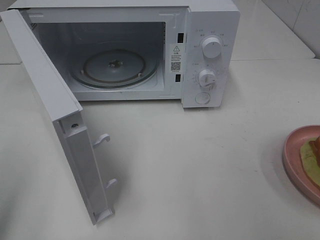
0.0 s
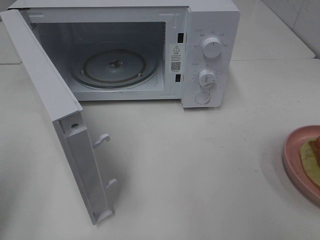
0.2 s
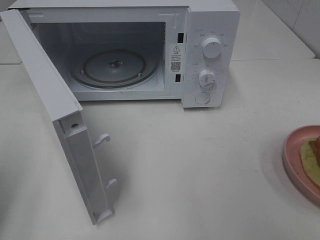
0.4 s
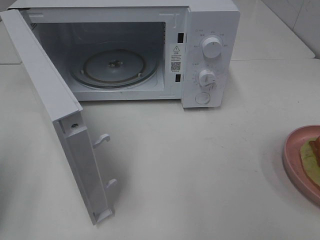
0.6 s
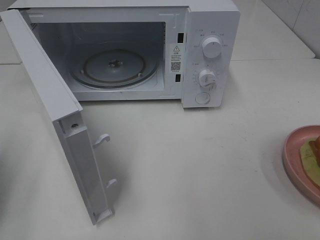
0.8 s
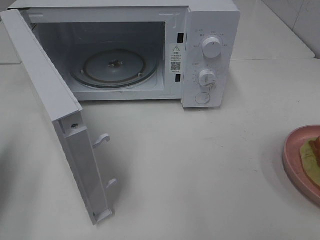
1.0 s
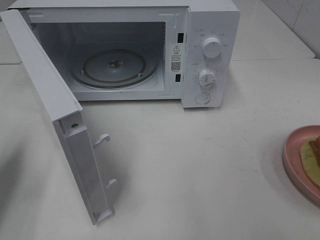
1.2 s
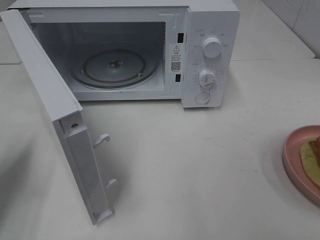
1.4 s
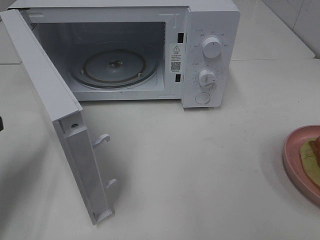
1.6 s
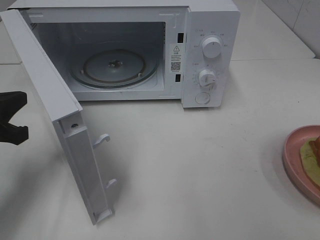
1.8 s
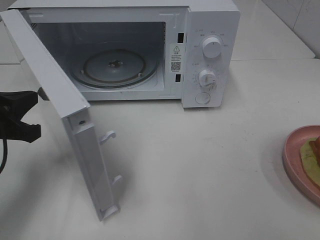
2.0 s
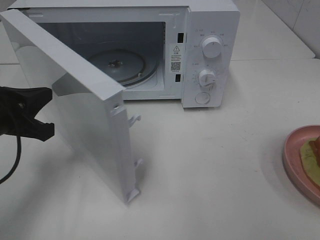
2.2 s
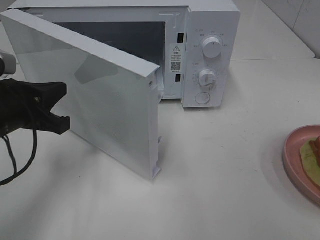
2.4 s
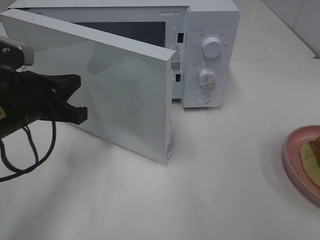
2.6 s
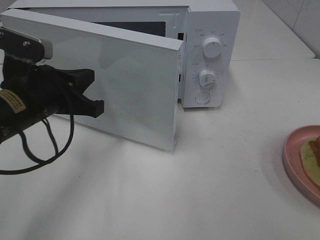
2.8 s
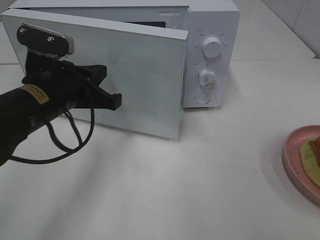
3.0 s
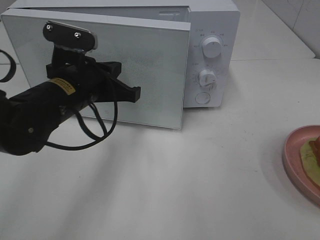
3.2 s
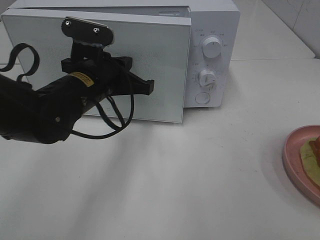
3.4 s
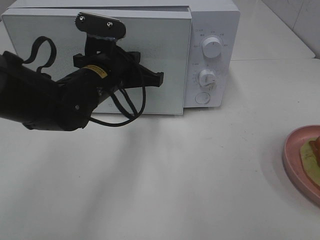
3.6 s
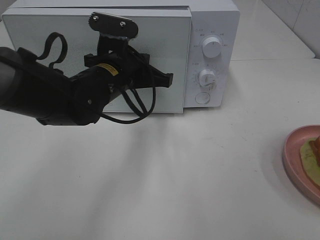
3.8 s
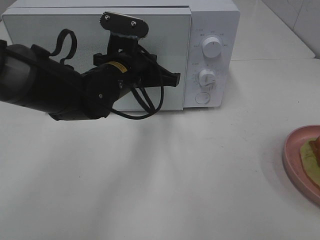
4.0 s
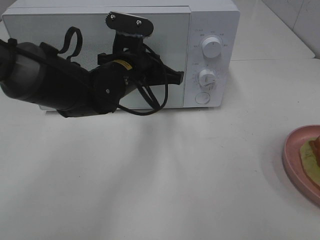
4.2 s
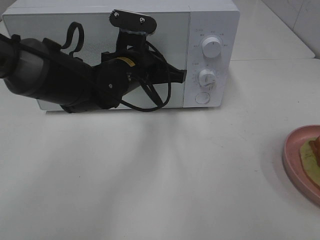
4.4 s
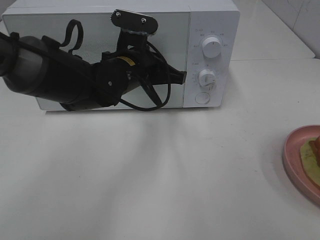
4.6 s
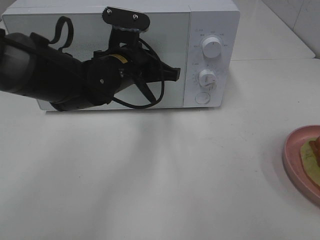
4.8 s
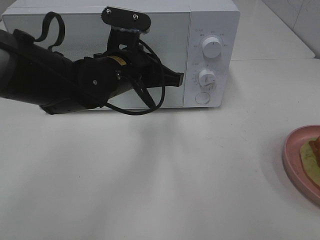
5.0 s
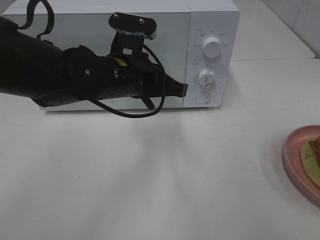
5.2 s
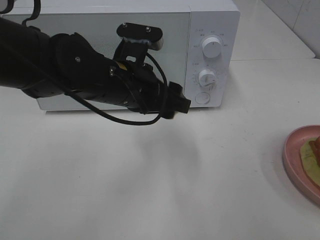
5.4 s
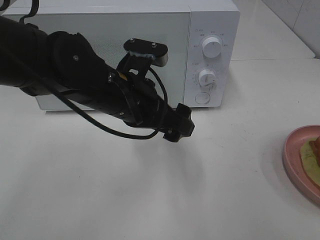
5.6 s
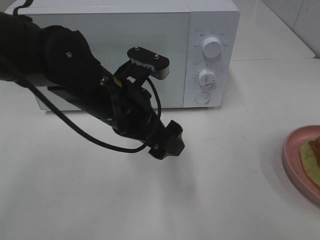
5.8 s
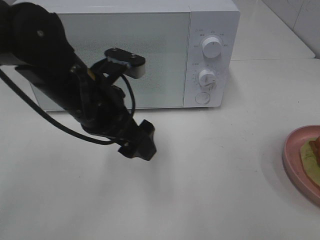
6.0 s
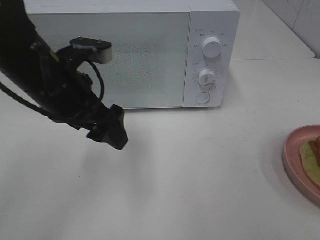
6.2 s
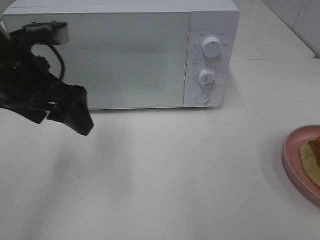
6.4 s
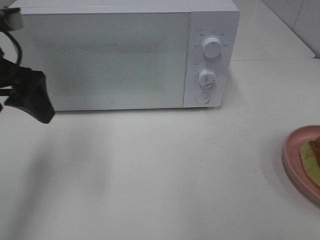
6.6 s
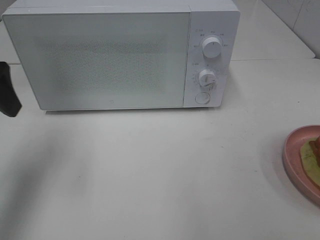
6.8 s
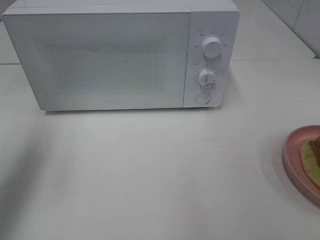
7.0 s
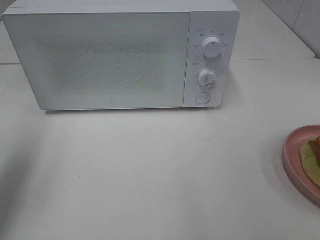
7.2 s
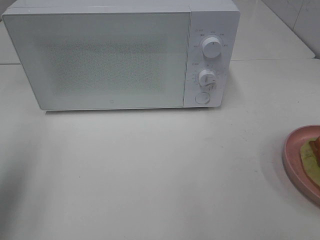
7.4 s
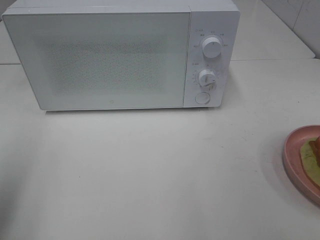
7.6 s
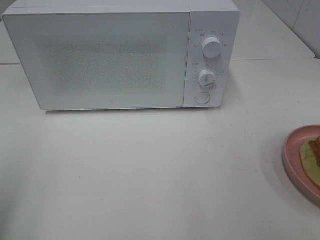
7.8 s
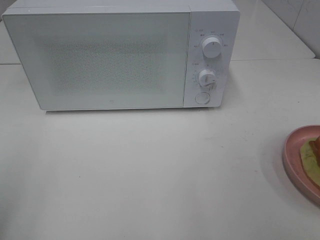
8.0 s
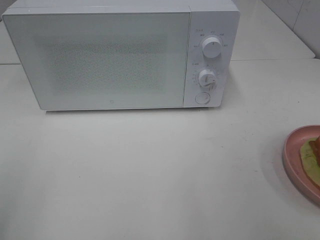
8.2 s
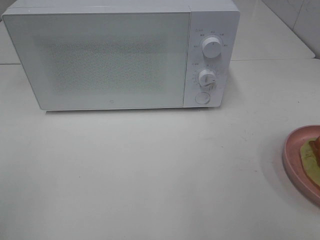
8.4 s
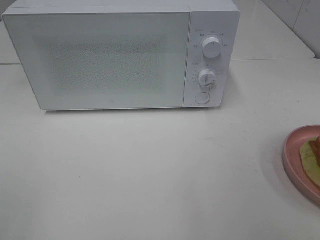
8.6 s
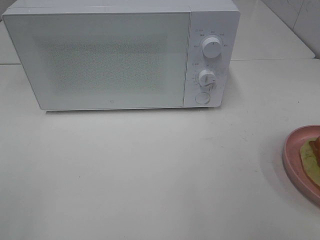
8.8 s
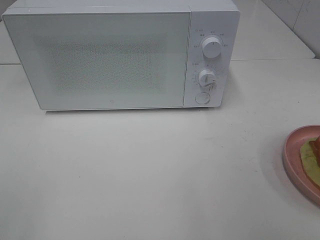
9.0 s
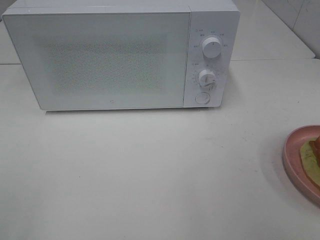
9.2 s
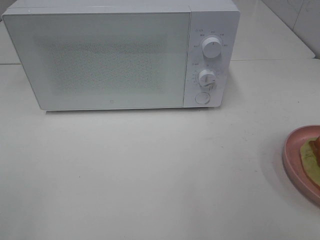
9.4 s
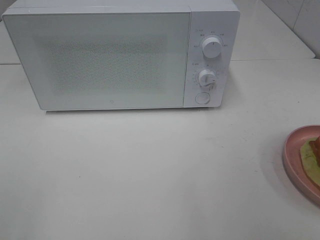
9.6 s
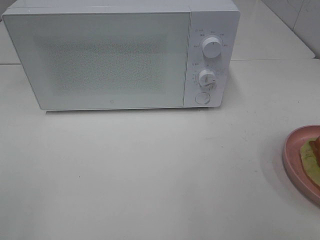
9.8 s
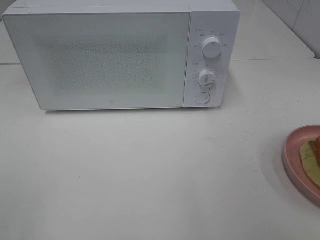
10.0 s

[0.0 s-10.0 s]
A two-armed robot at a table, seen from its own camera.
Task of the whole recording: Heat Sandwich.
Step, 0.0 to 5.4 s: Left hand: close the microwave door.
0.0 to 1.4 s: The left gripper moves forward and downward, roughly 15 cm.
1.4 to 2.8 s: The left gripper heads to the right, covering roughly 15 cm.
2.8 to 4.2 s: The left gripper travels to the right and forward by about 15 cm.
4.2 to 5.8 s: The left gripper heads backward, covering approximately 10 cm, and opens up.
5.8 to 7.2 s: The left gripper moves to the left and upward, roughly 30 cm.
7.2 to 8.6 s: The left gripper goes approximately 20 cm backward.
8.6 to 10.0 s: Both grippers stay put.

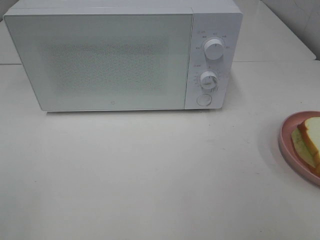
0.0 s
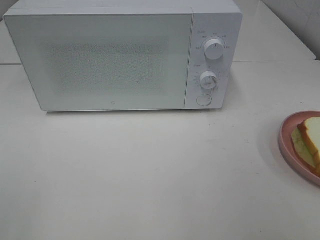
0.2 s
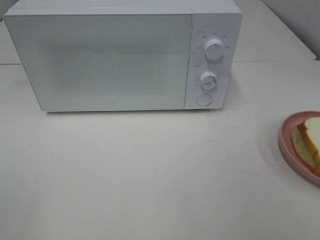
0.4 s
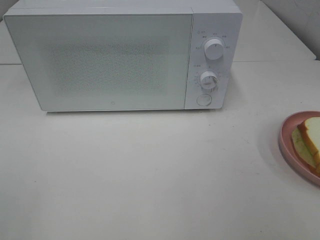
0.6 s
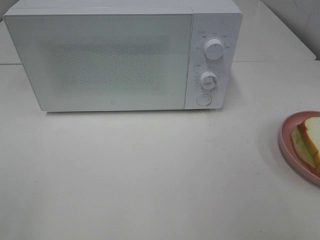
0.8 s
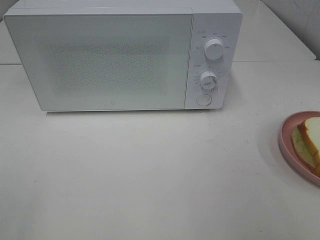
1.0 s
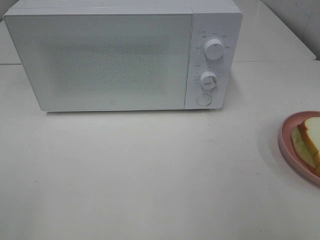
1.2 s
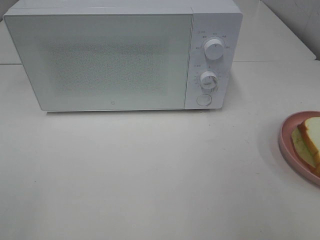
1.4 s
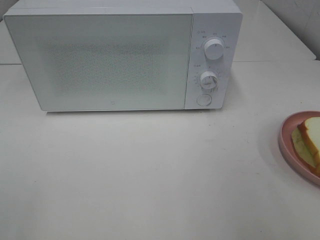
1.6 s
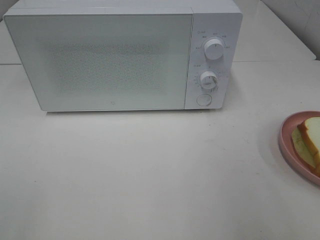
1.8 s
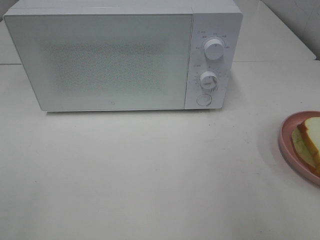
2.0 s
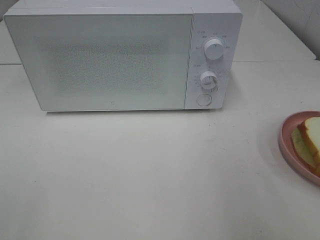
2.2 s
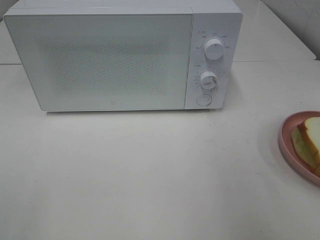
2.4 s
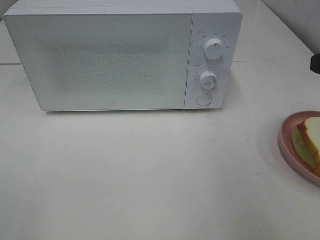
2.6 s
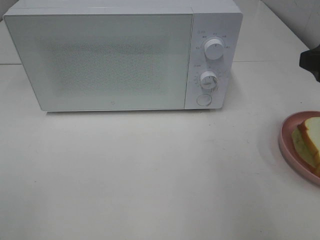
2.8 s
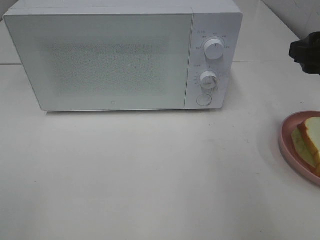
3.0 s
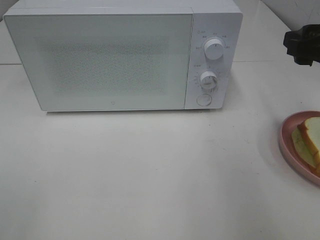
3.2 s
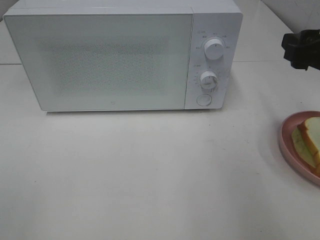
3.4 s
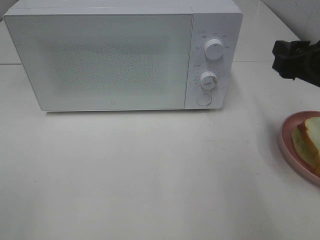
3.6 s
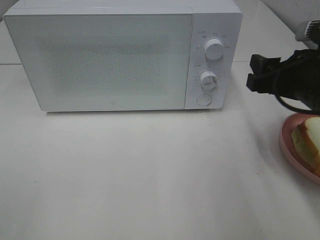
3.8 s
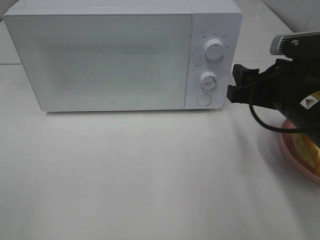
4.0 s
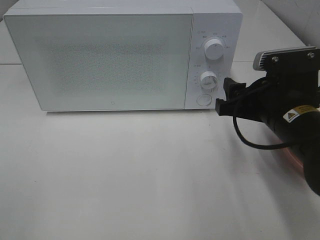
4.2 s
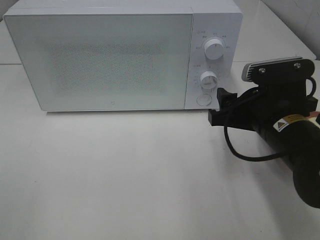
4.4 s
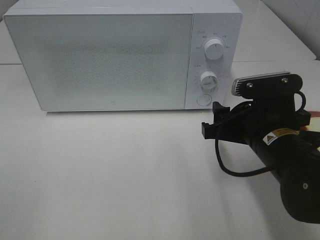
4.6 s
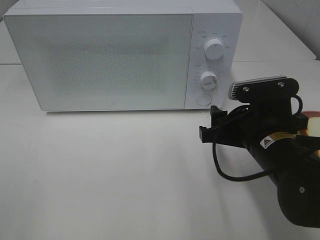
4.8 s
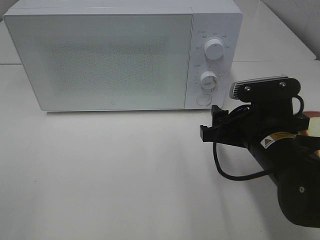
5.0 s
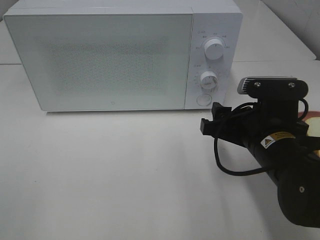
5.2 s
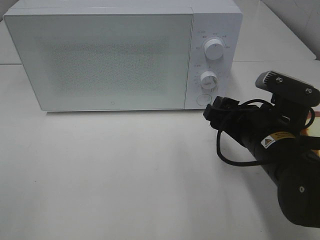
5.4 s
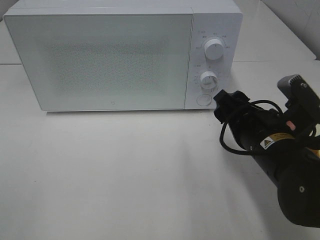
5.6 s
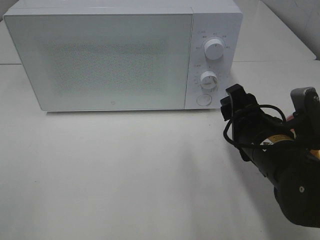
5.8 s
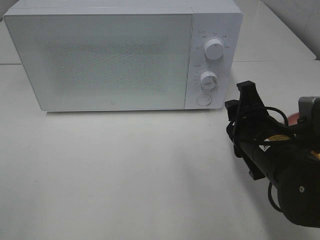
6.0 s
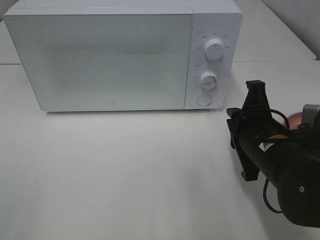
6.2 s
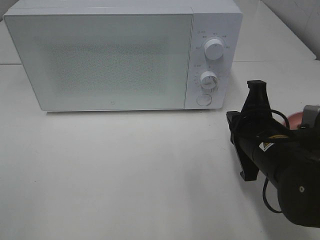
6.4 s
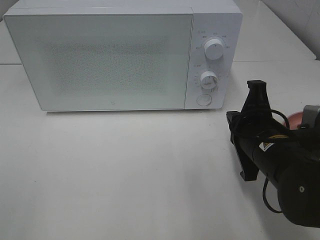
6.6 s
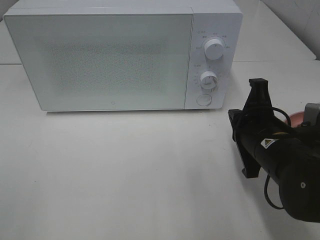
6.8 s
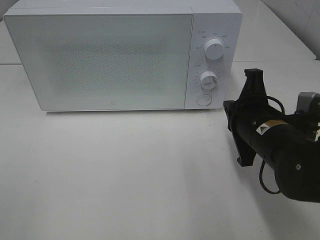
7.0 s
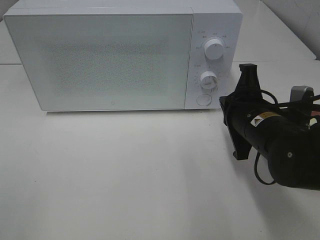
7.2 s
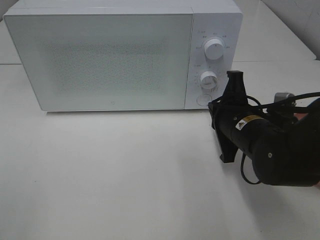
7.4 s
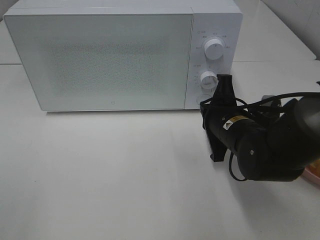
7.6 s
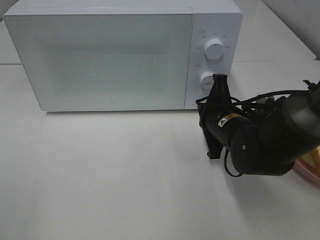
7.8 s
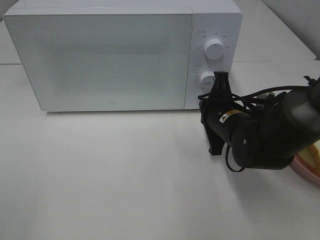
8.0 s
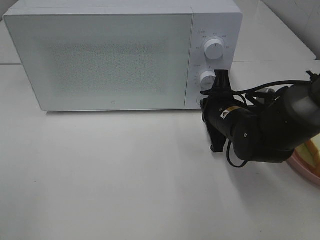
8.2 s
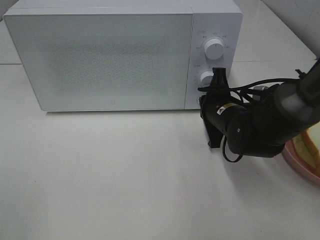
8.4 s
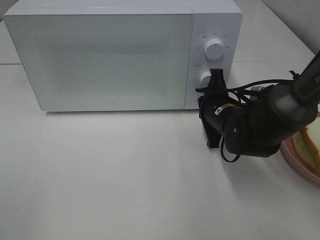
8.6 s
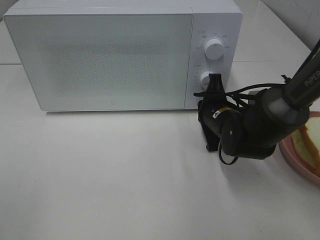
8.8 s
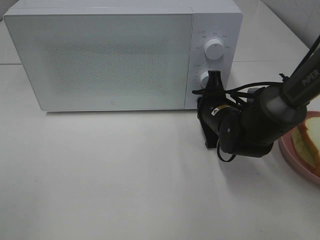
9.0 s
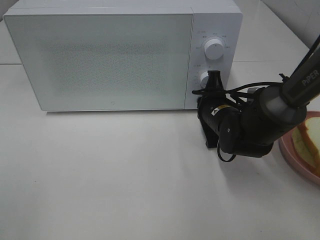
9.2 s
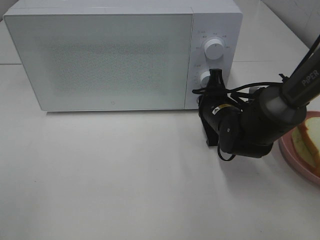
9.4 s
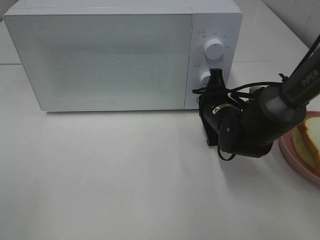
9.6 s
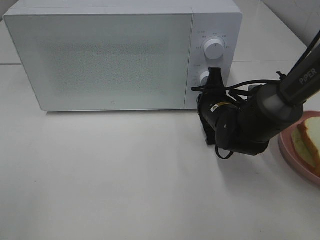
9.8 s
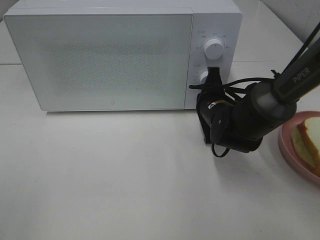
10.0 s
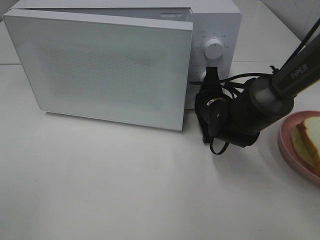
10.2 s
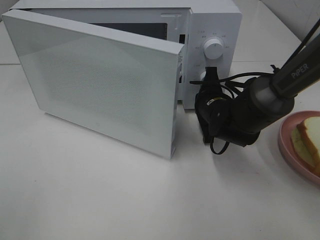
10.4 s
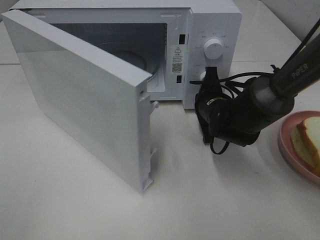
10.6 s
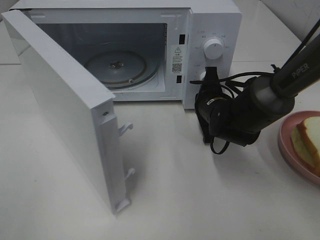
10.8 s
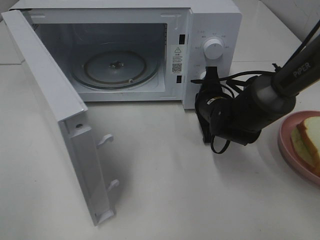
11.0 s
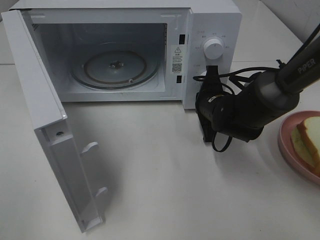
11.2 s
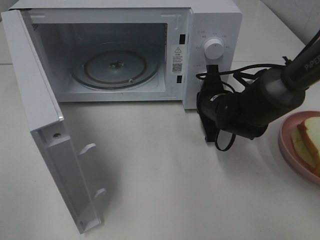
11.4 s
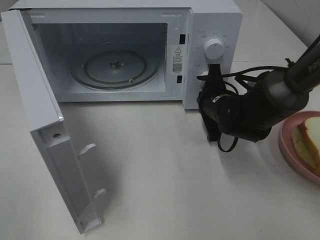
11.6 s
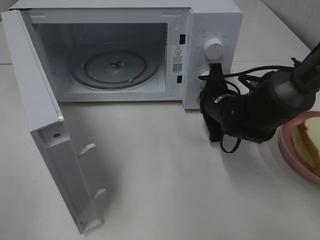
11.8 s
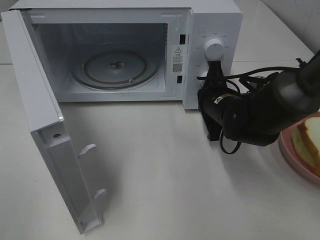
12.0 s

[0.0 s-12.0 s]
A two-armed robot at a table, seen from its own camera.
Task of the whole recording: Heat Sandwich.
1.6 to 3.0 s: The right gripper travels forward by some 15 cm.
3.0 to 4.4 s: The right gripper goes approximately 15 cm downward and to the left.
6.0 to 7.6 s: The right gripper is displaced forward by approximately 5 cm, and closes up.
7.6 to 9.0 s: The right gripper is displaced forward by roughly 5 cm.
9.0 to 10.4 s: The grippers move only a little.
